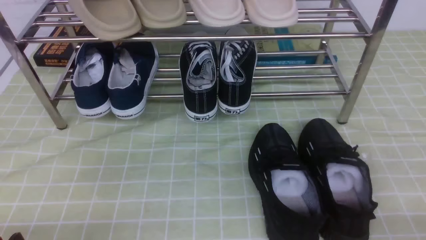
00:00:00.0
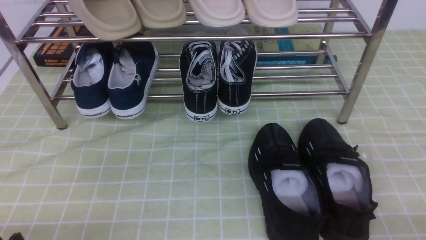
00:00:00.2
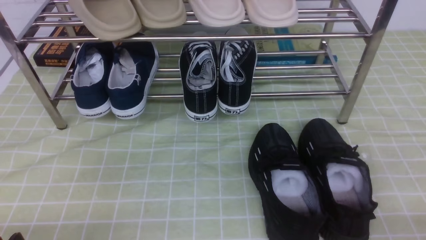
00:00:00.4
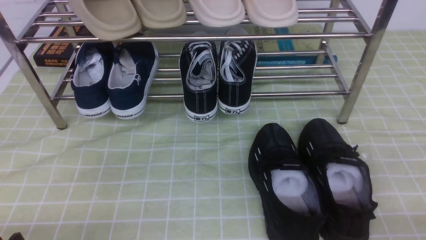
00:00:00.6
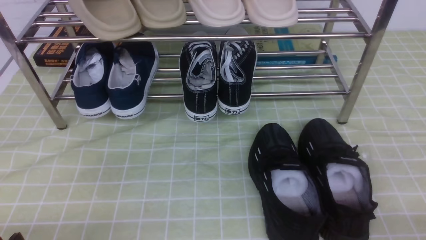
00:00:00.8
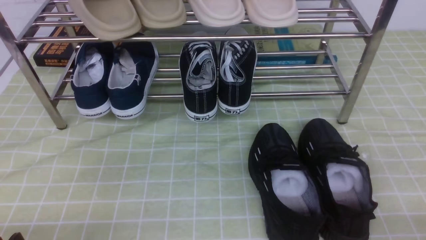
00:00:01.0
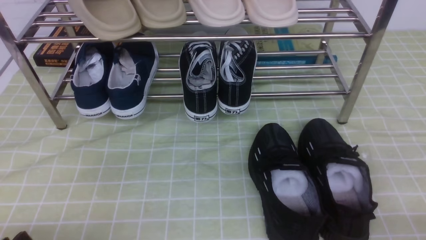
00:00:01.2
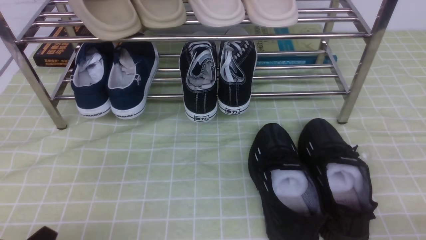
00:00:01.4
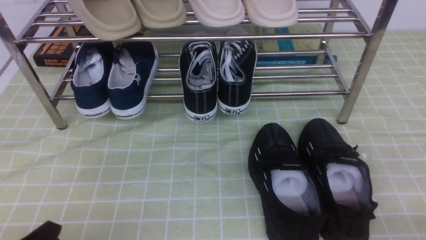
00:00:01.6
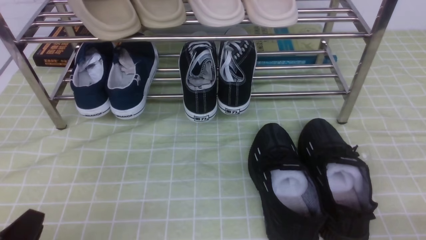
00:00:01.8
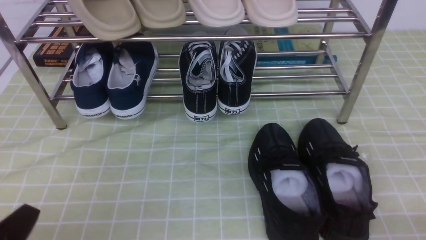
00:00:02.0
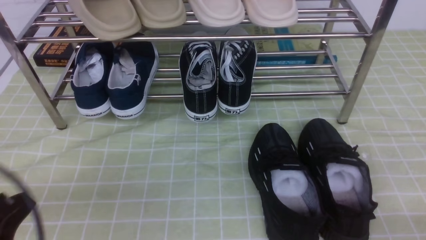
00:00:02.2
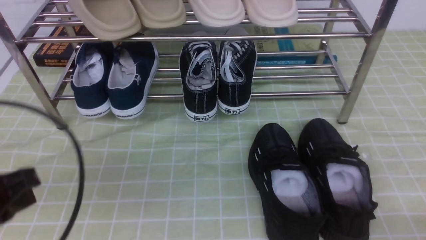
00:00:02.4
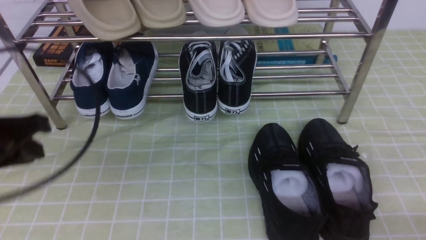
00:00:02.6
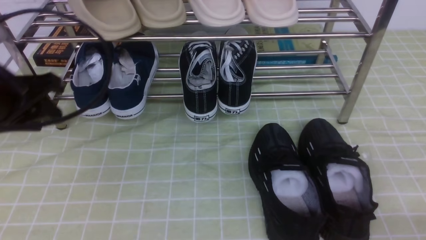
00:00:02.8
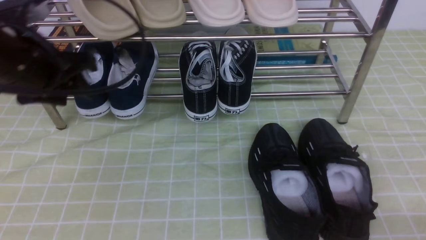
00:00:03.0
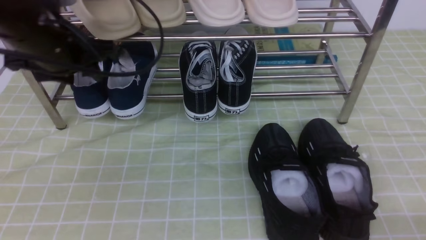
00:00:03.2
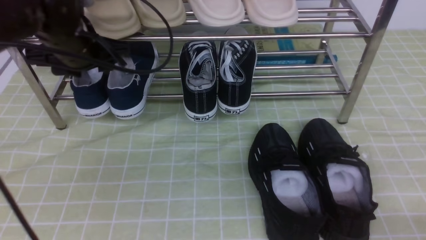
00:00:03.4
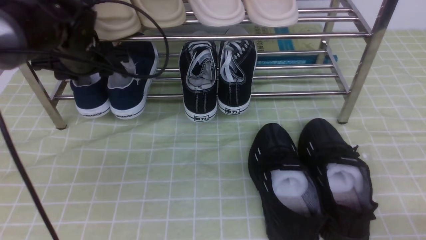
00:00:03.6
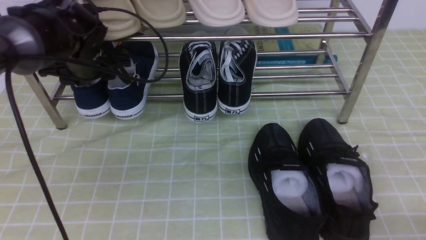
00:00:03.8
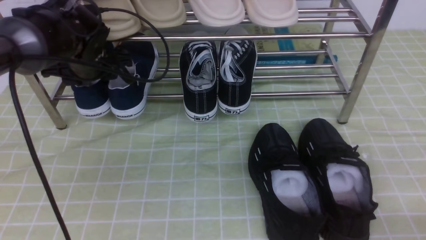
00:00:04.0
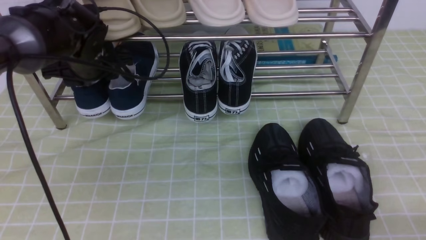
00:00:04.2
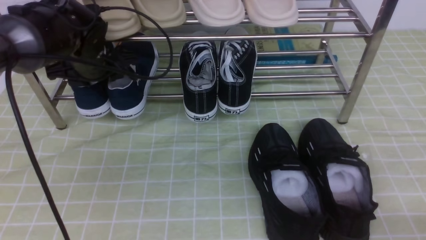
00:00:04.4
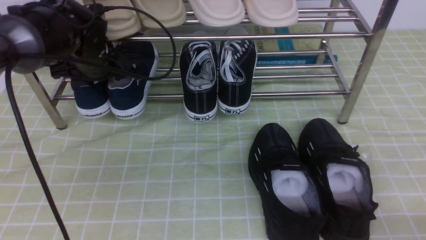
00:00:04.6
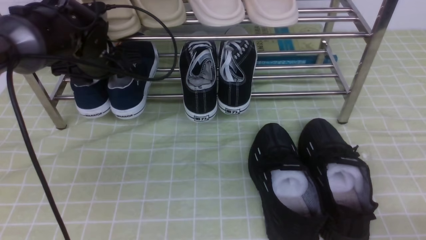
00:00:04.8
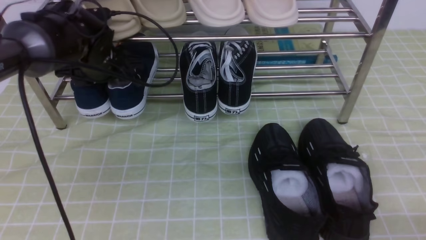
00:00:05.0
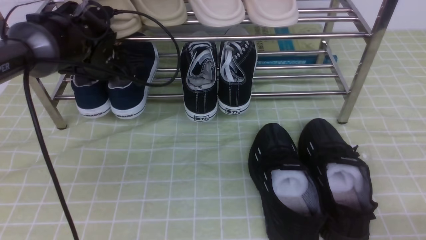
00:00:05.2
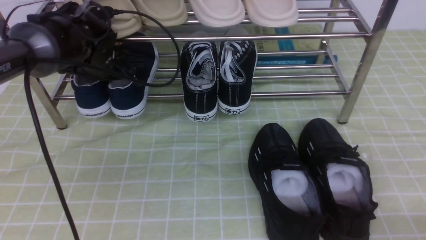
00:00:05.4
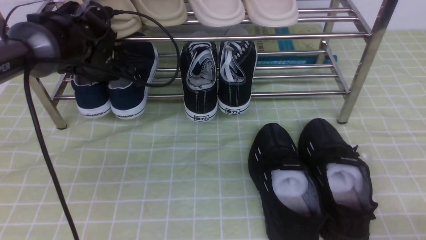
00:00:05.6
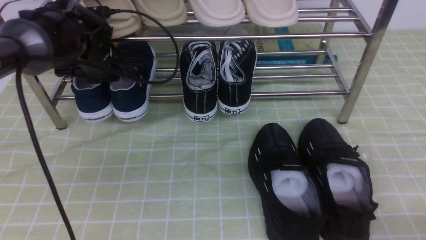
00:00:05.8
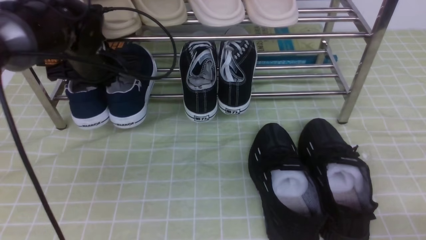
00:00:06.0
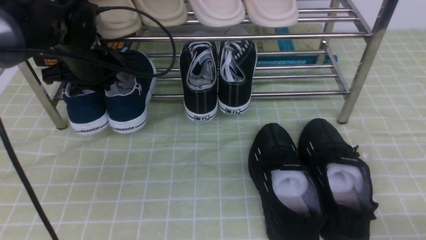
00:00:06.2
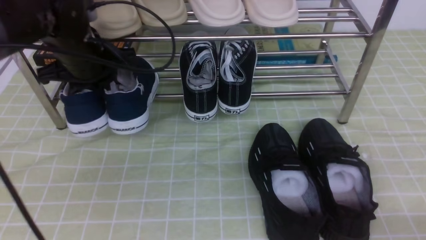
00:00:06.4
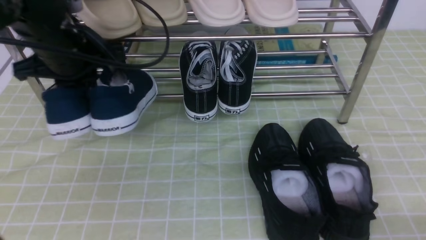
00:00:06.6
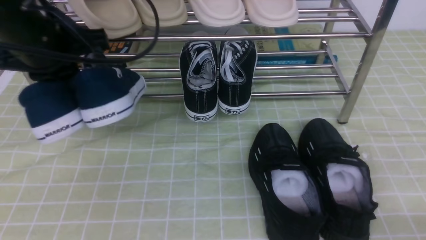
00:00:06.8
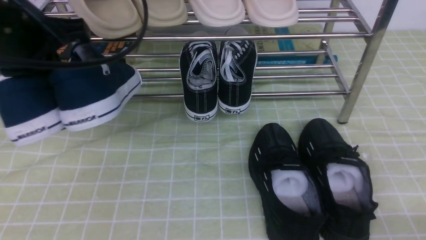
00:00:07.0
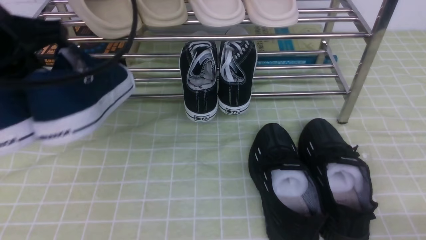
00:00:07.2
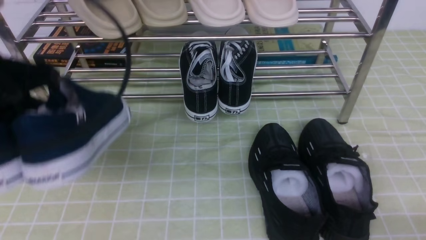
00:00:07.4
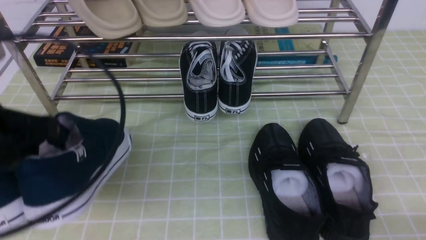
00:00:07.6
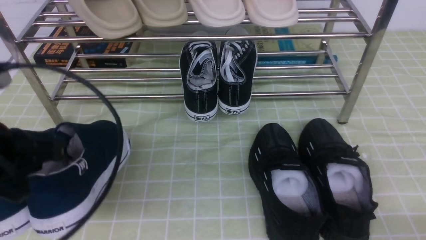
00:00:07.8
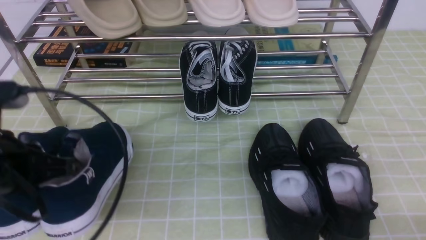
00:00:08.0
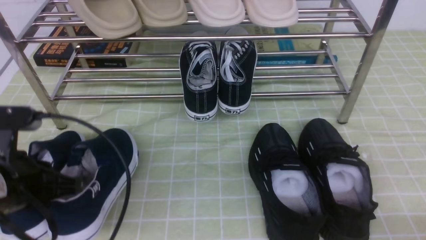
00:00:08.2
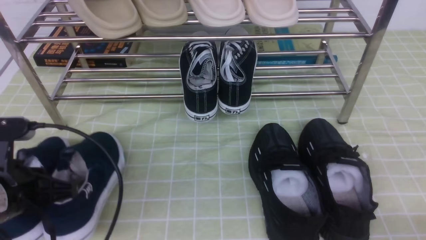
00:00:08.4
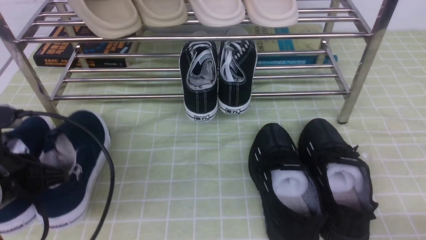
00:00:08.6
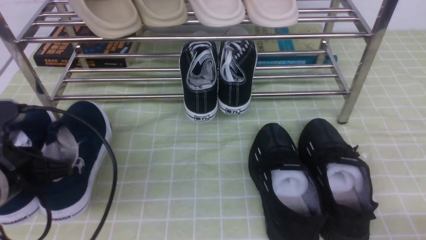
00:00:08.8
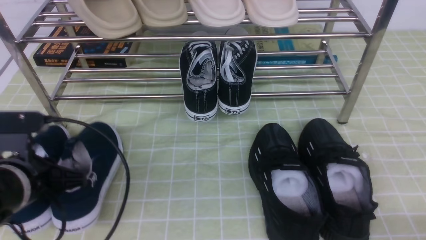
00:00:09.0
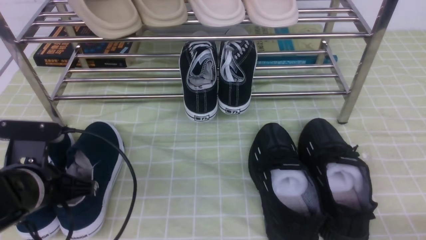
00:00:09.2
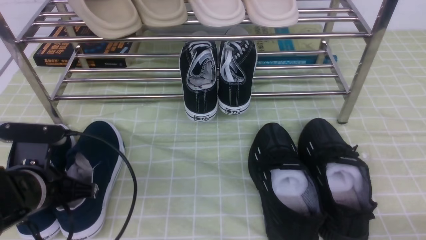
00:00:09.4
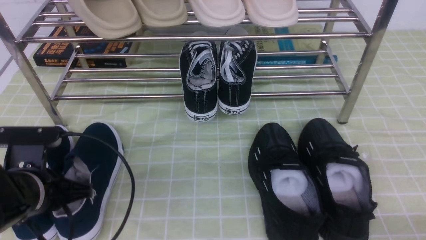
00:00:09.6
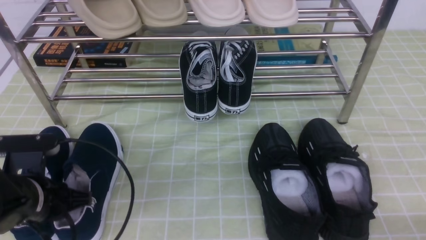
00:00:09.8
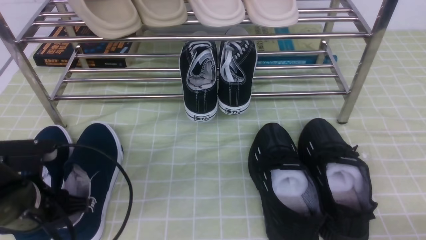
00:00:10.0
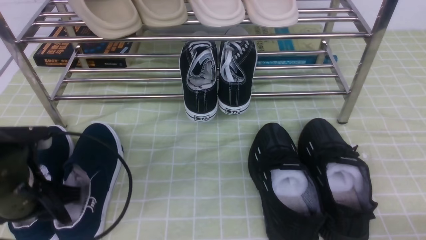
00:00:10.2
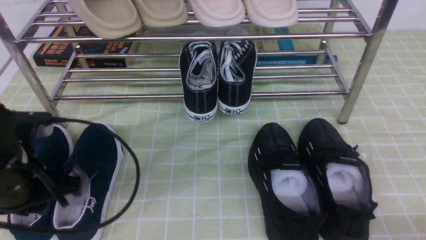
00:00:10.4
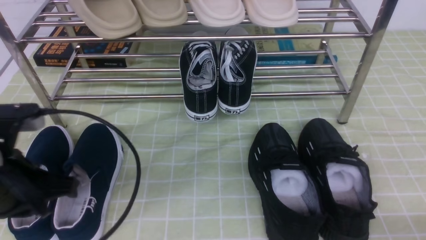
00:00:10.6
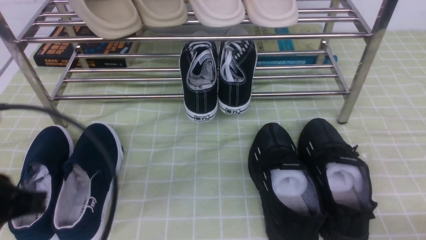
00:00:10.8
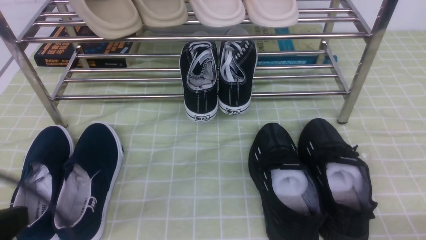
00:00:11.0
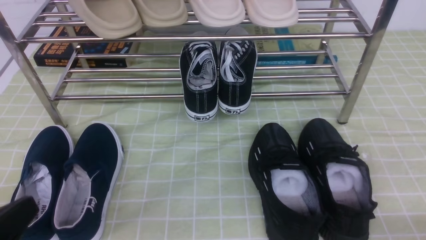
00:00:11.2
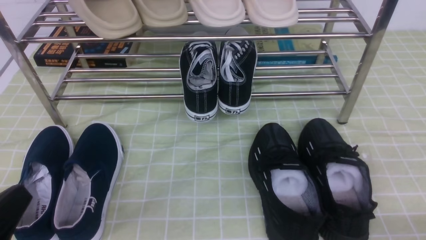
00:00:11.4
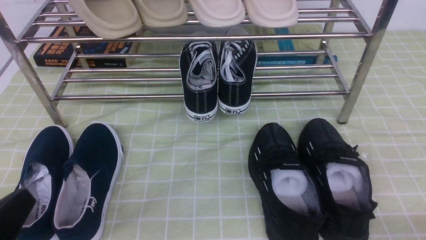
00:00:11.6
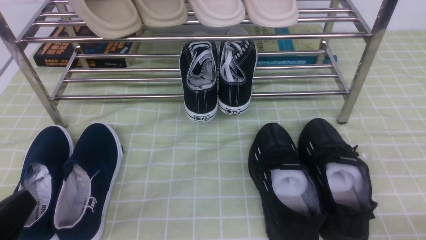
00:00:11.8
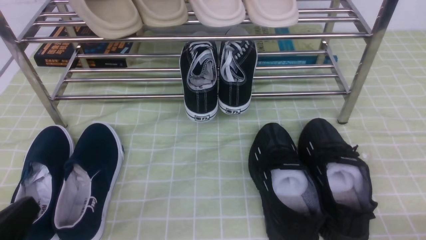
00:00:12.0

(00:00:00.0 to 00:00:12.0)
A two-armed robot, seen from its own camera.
Step, 00:00:00.0 - 00:00:06.0: use the left arm to clamp a shoe on the left side of the shoe rack.
Step, 00:00:06.2 - 00:00:10.6: Use your left arm to remove the clamped shoe from the shoe rack and put it down.
00:00:01.6 - 00:00:03.0: The left gripper goes about 30 cm forward and upward, and closes, then reopens.
00:00:03.0 - 00:00:04.4: The left gripper is displaced forward and downward by some 15 cm.
00:00:04.4 - 00:00:06.0: The left gripper closes up.
00:00:06.0 - 00:00:07.6: The left gripper is displaced backward by about 20 cm.
00:00:07.6 - 00:00:09.0: The left gripper moves downward, approximately 15 cm.
00:00:09.0 - 00:00:10.4: The left gripper opens and closes again.
00:00:10.4 - 00:00:12.0: The left gripper heads backward, covering roughly 15 cm.

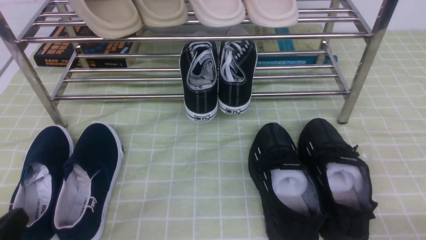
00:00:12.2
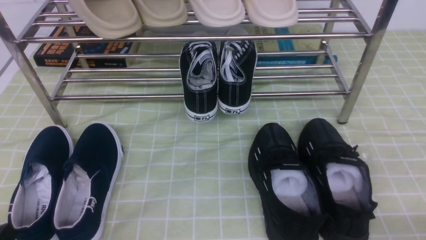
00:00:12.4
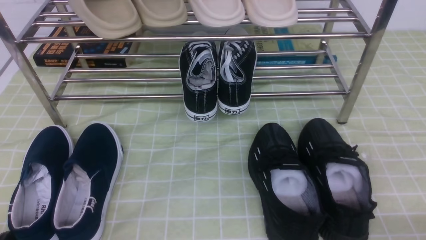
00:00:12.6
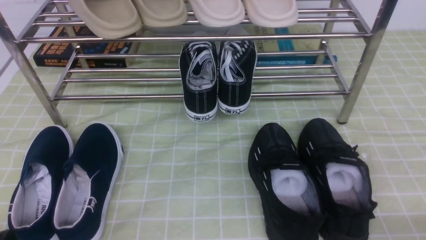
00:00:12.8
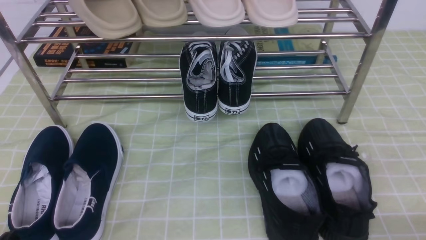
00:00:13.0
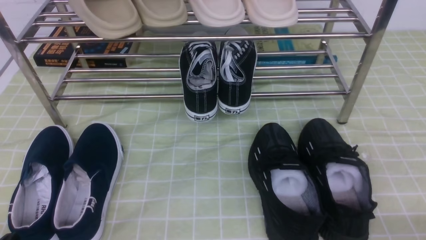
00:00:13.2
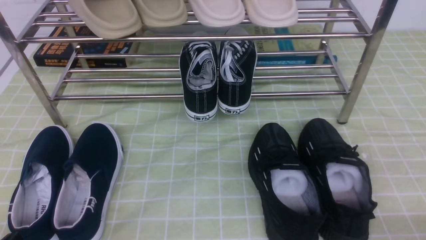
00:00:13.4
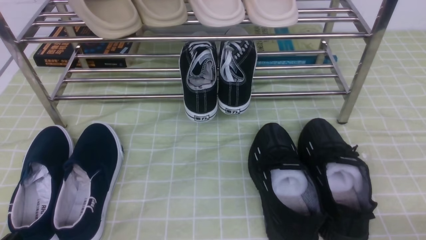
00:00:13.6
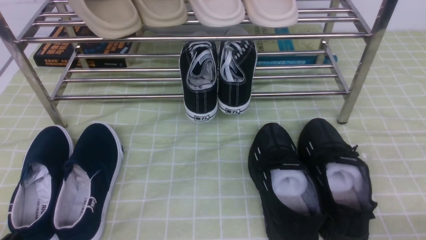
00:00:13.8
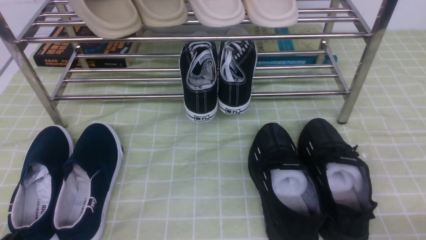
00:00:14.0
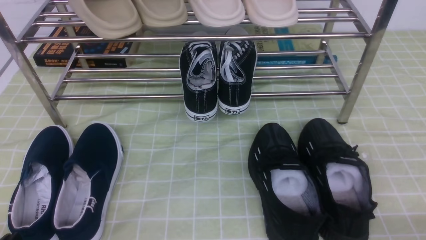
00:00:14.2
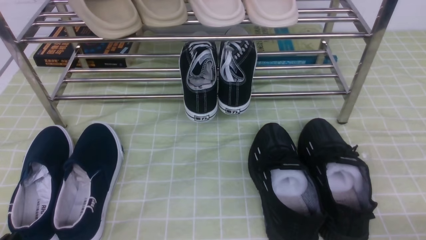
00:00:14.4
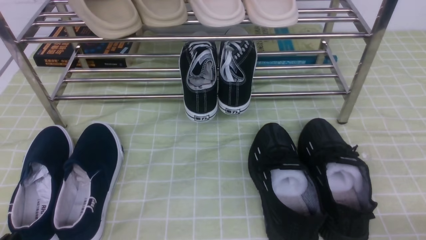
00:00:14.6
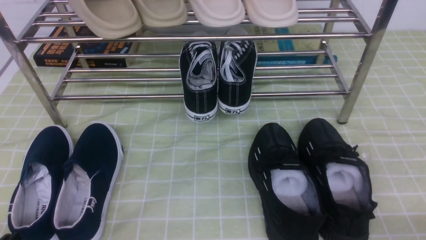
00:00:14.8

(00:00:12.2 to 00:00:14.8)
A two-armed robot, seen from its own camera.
00:00:12.2 - 00:00:13.4: The grippers move only a little.
00:00:13.4 - 00:00:14.8: Both grippers stay put.
